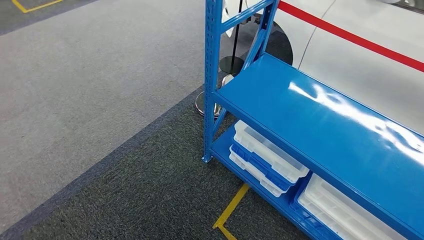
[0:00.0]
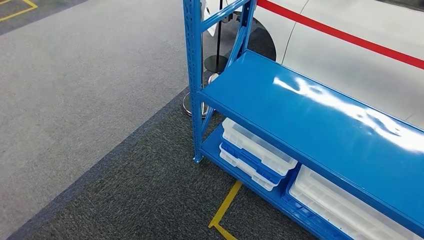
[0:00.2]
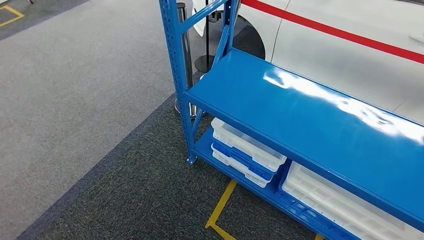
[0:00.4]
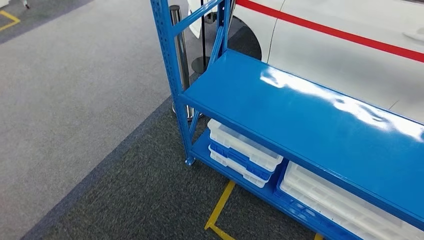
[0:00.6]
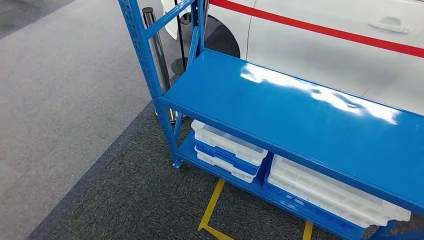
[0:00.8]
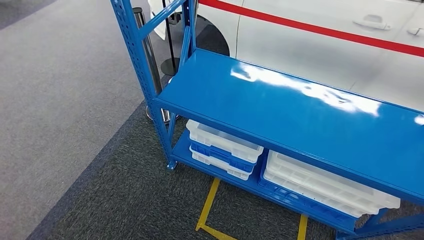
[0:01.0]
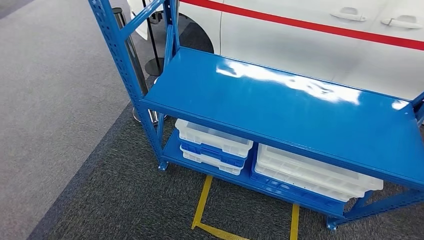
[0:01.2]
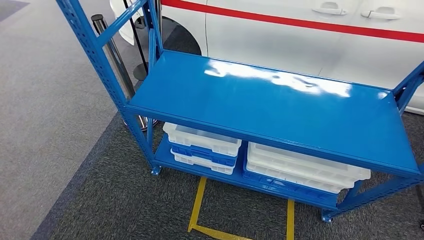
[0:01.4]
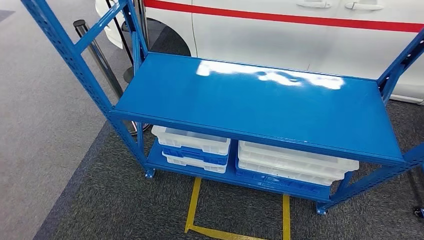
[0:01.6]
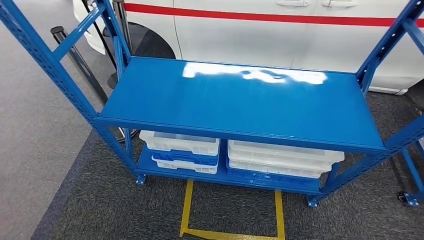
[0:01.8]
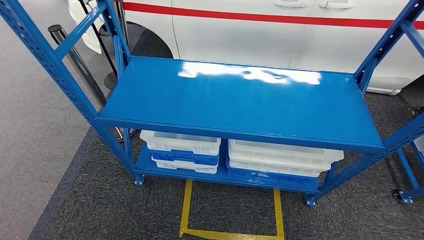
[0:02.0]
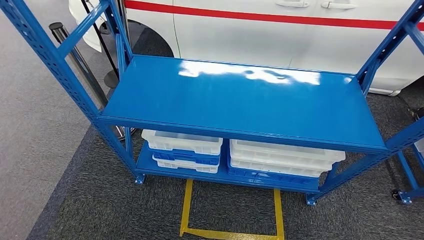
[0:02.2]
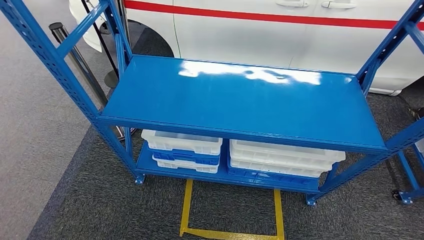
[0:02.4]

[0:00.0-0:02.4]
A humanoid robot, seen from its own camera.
Step, 0:00.0 to 0:02.4: Return to the initial position at the shelf.
